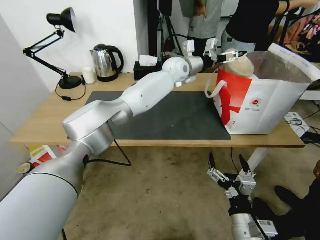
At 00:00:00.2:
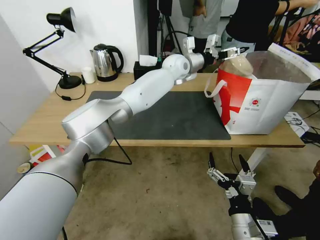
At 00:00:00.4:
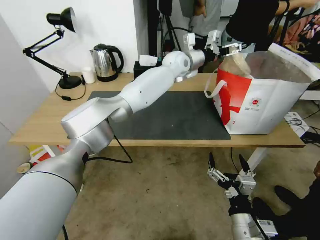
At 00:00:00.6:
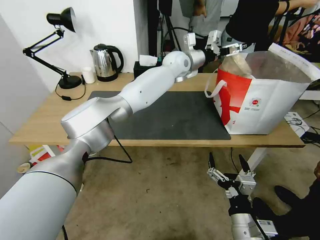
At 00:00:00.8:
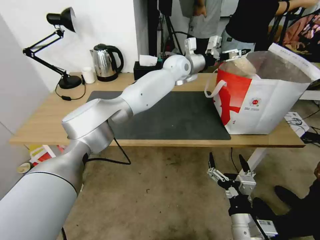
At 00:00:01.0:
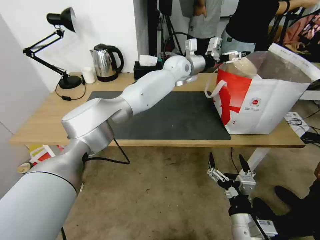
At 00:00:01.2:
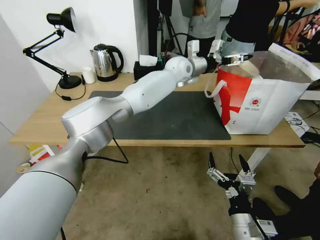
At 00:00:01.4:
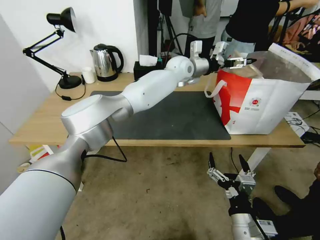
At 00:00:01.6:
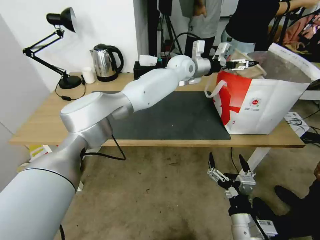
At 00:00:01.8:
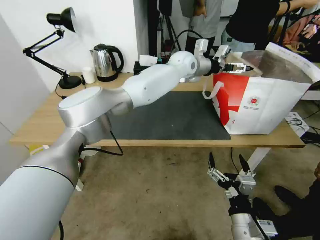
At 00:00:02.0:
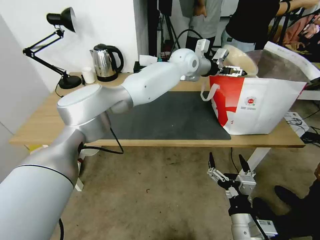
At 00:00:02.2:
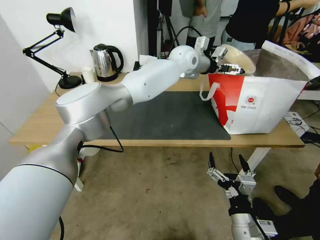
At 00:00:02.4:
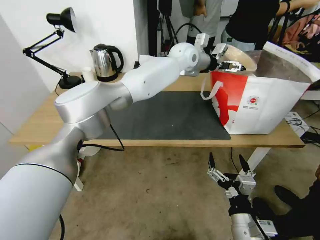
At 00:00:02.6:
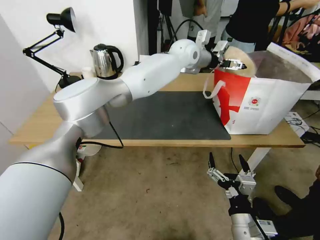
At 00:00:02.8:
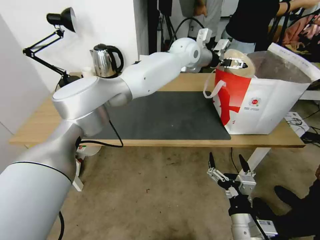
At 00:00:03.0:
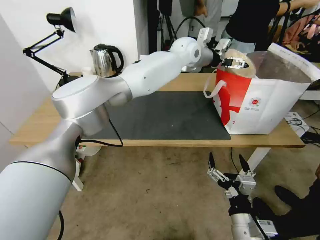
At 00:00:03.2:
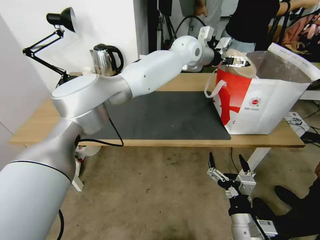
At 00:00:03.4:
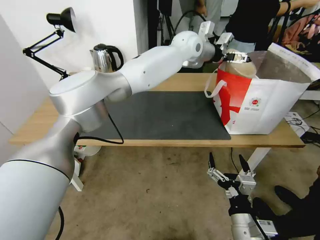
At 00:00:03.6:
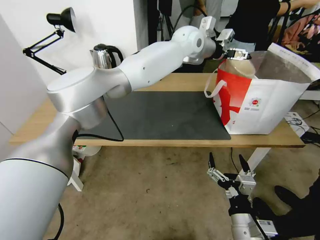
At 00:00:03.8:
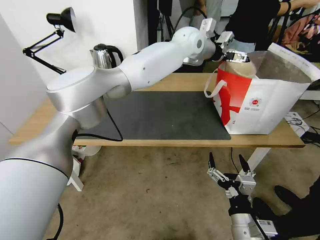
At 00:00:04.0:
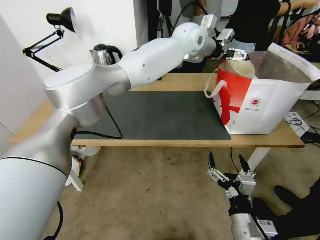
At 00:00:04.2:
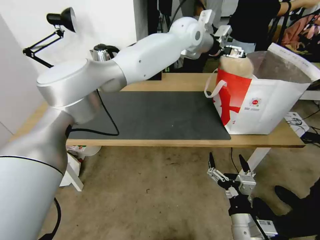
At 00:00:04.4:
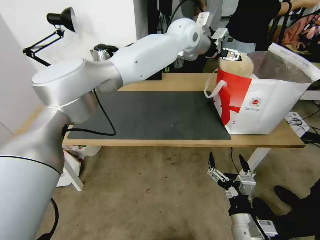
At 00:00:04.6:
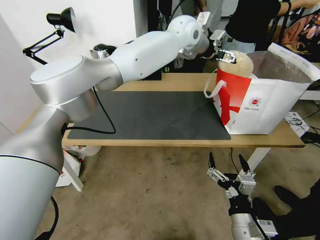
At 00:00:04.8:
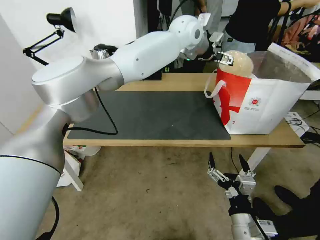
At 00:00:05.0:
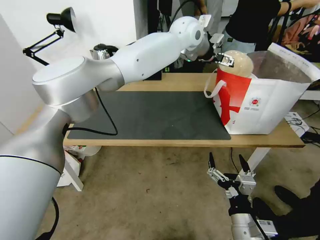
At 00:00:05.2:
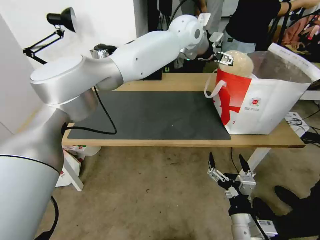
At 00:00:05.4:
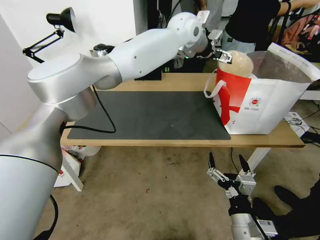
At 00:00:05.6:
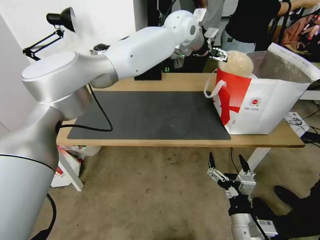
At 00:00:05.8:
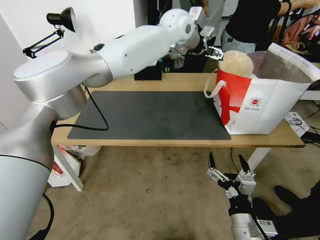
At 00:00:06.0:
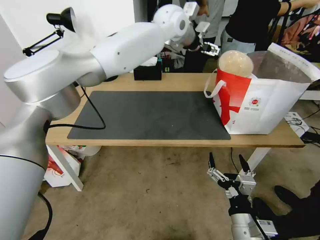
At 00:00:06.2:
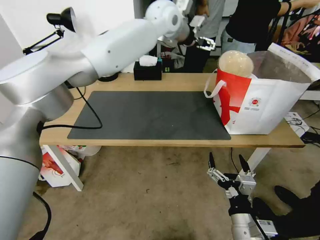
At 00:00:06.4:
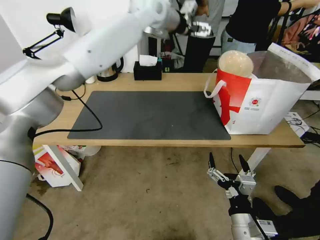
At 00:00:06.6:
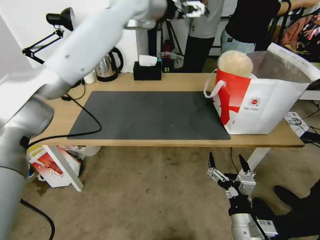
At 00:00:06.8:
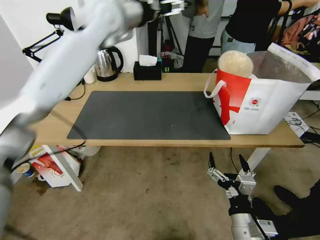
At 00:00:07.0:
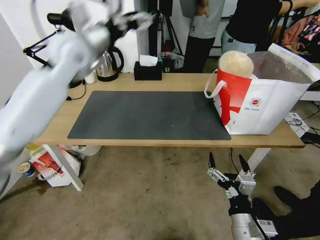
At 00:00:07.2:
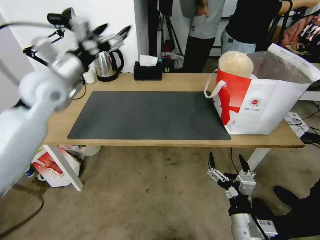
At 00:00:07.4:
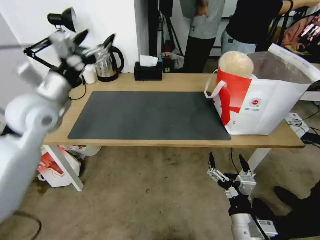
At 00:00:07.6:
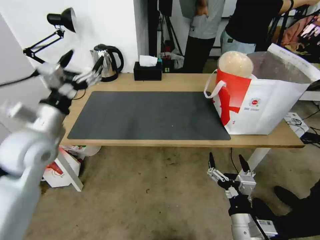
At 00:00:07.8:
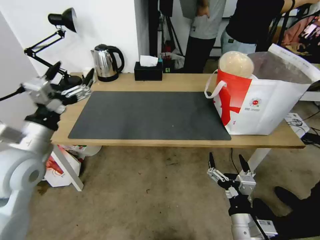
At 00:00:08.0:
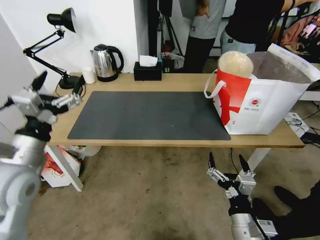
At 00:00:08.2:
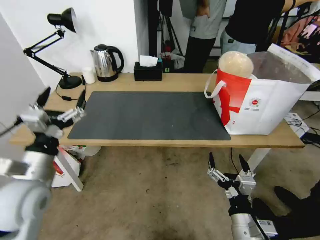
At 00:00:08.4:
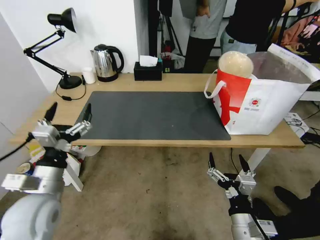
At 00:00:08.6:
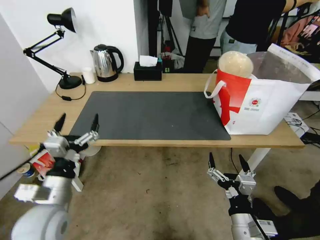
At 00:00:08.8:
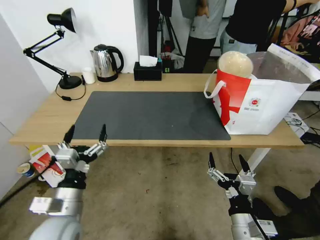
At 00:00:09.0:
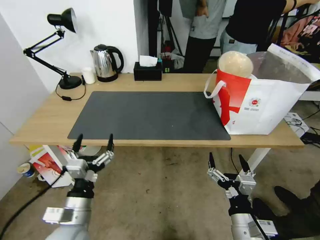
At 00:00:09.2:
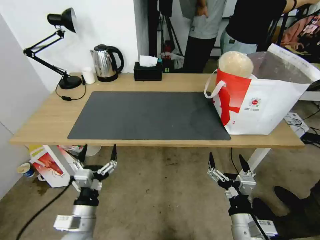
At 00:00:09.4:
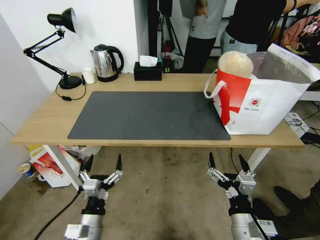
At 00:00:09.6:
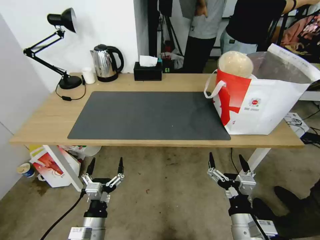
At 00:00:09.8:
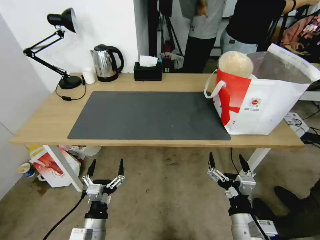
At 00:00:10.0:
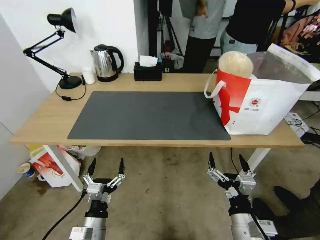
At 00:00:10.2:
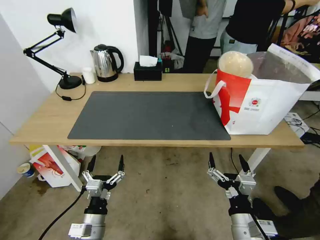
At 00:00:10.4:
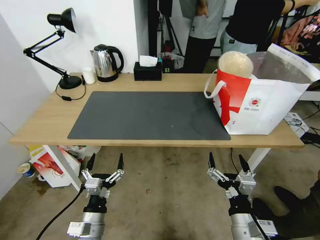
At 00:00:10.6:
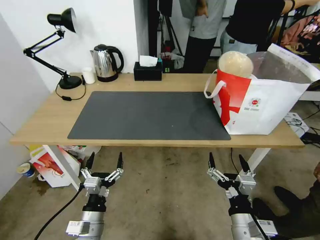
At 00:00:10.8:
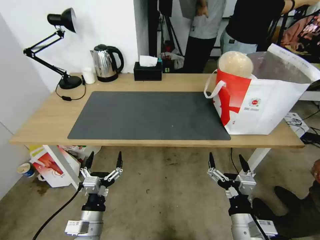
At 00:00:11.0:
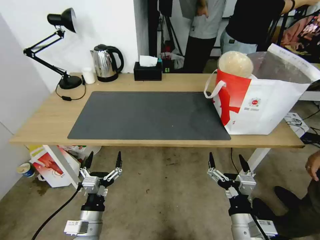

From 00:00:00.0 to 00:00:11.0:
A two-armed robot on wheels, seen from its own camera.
Task of the whole recording: Pick up the trash from the table and place it into the takeout bag.
From 00:00:00.0 to 00:00:01.6: There are only small adjustments of the grippers.
From 00:00:01.6 to 00:00:03.2: The left gripper is displaced upward by approximately 5 cm.
From 00:00:03.2 to 00:00:04.8: The left gripper travels upward by about 5 cm.
From 00:00:04.8 to 00:00:06.2: The left gripper is displaced to the left by some 10 cm.
From 00:00:06.2 to 00:00:07.8: The left gripper heads backward, to the left and downward, covering roughly 50 cm.
From 00:00:07.8 to 00:00:09.4: The left gripper shifts roughly 30 cm downward, backward and to the right.
From 00:00:09.4 to 00:00:11.0: There are only small adjustments of the grippers.

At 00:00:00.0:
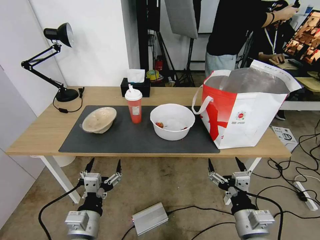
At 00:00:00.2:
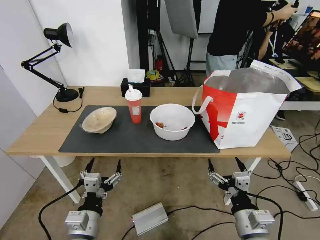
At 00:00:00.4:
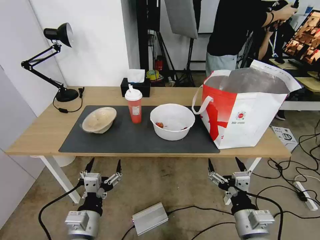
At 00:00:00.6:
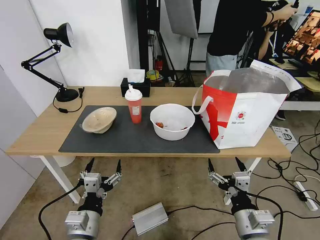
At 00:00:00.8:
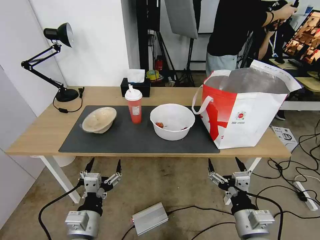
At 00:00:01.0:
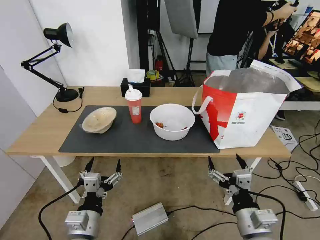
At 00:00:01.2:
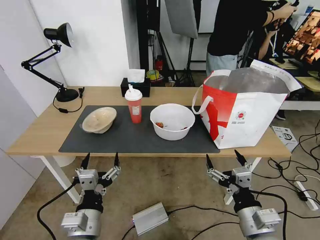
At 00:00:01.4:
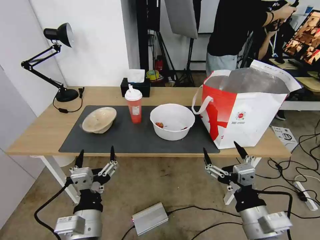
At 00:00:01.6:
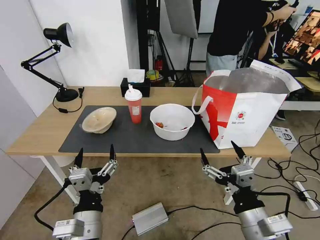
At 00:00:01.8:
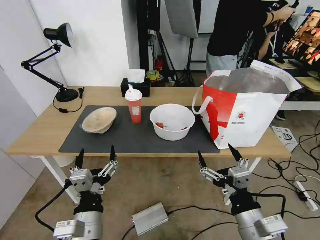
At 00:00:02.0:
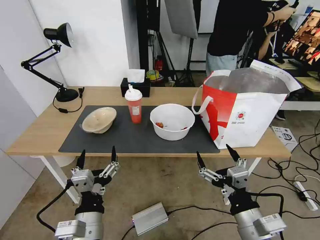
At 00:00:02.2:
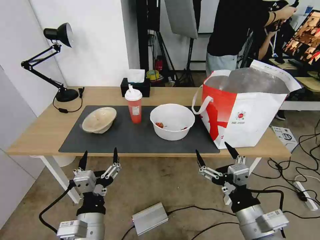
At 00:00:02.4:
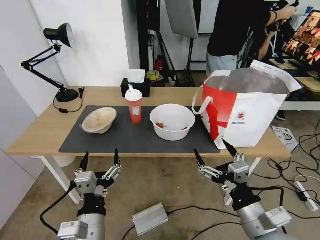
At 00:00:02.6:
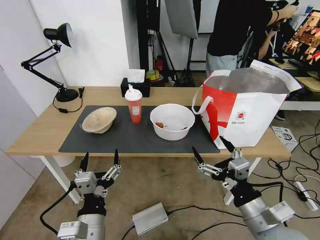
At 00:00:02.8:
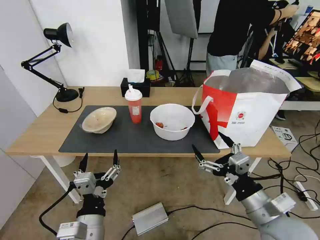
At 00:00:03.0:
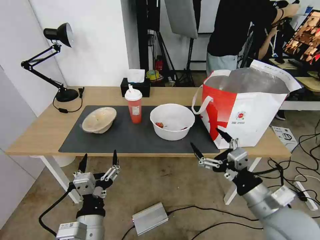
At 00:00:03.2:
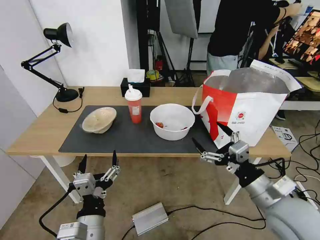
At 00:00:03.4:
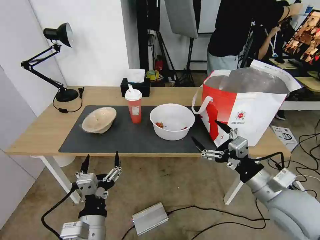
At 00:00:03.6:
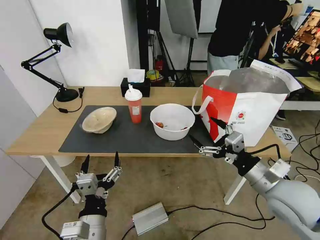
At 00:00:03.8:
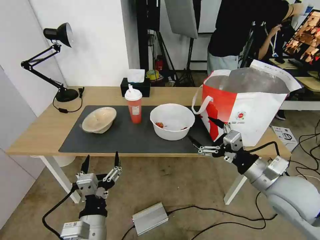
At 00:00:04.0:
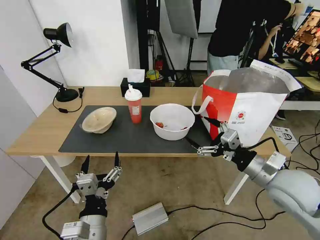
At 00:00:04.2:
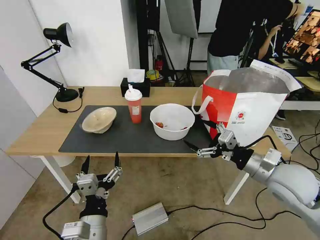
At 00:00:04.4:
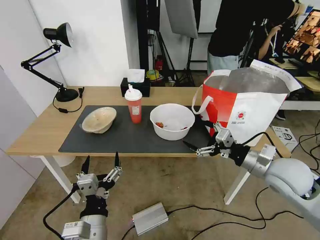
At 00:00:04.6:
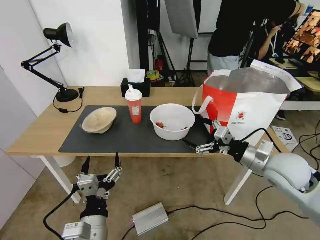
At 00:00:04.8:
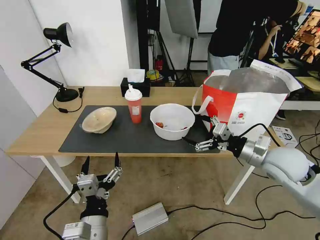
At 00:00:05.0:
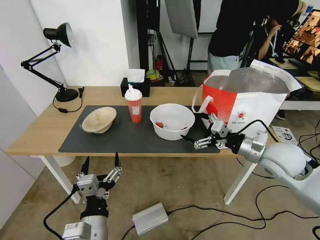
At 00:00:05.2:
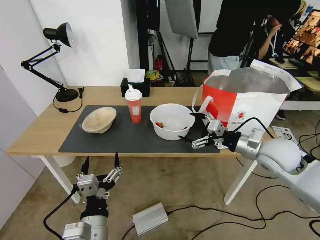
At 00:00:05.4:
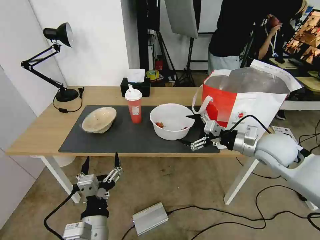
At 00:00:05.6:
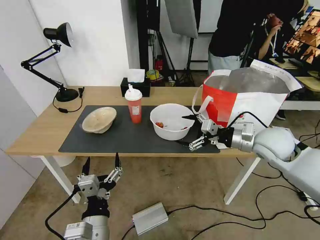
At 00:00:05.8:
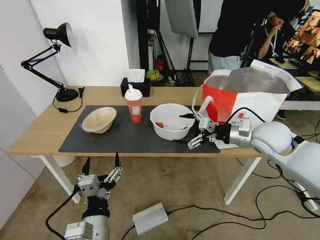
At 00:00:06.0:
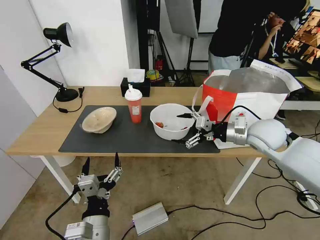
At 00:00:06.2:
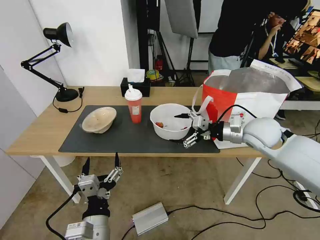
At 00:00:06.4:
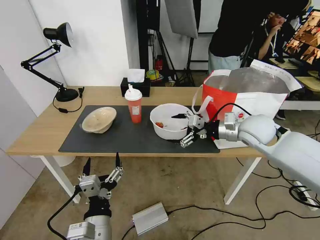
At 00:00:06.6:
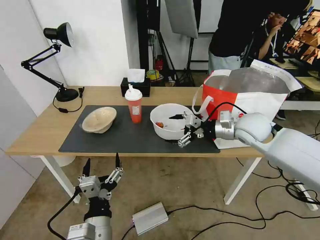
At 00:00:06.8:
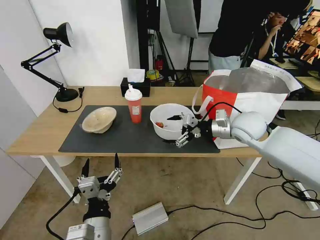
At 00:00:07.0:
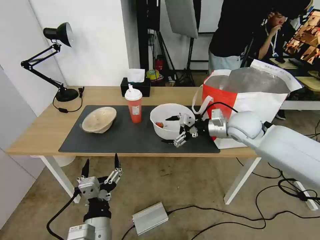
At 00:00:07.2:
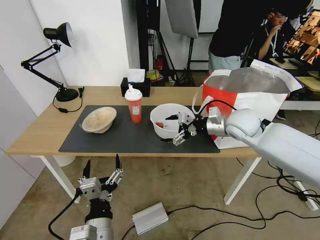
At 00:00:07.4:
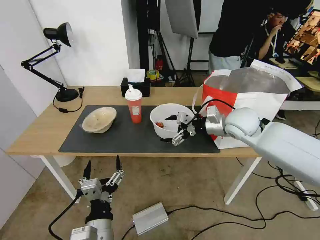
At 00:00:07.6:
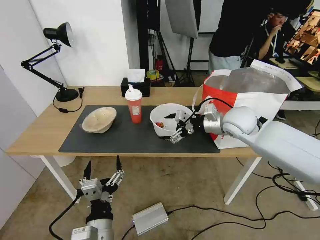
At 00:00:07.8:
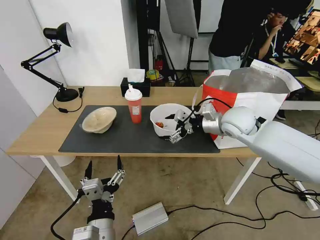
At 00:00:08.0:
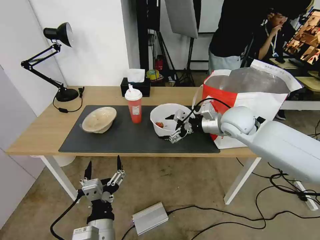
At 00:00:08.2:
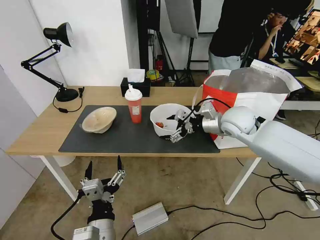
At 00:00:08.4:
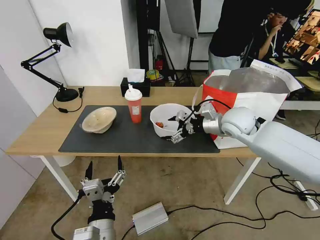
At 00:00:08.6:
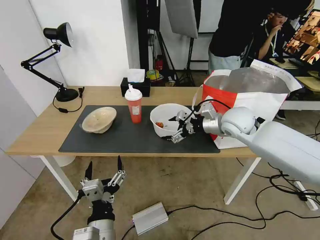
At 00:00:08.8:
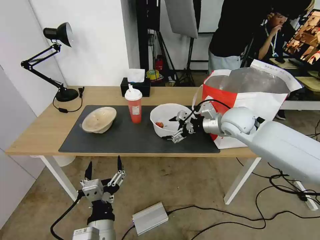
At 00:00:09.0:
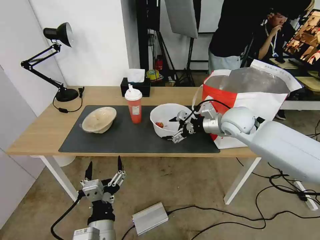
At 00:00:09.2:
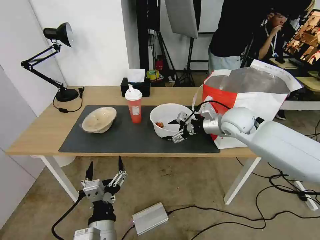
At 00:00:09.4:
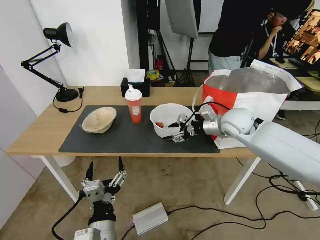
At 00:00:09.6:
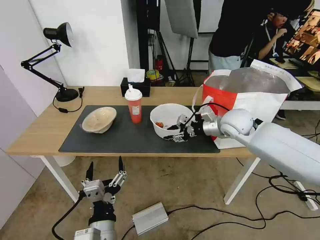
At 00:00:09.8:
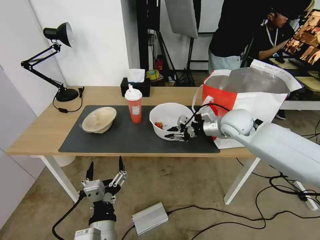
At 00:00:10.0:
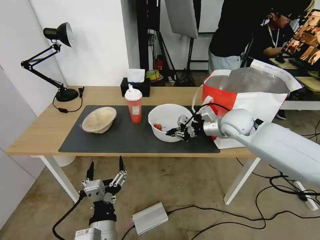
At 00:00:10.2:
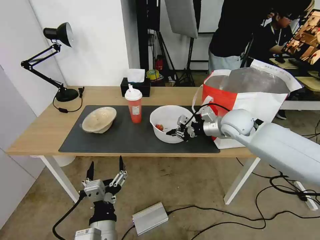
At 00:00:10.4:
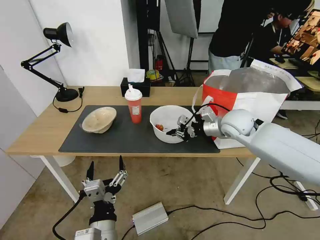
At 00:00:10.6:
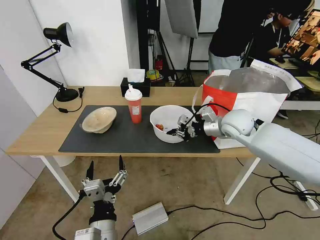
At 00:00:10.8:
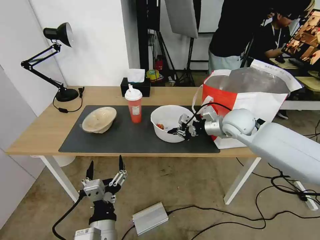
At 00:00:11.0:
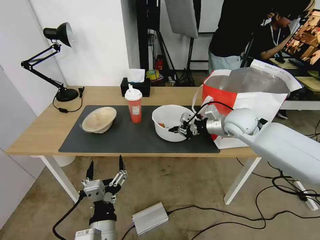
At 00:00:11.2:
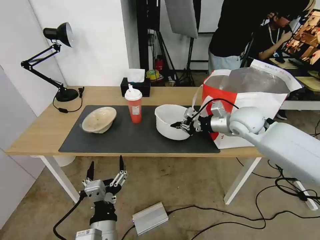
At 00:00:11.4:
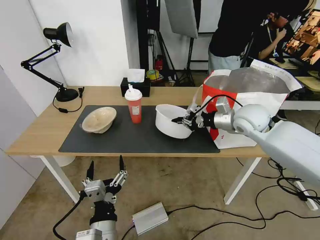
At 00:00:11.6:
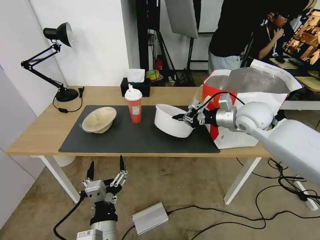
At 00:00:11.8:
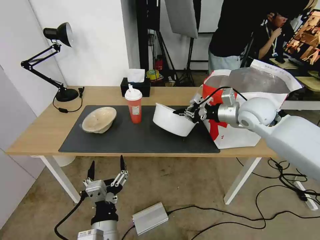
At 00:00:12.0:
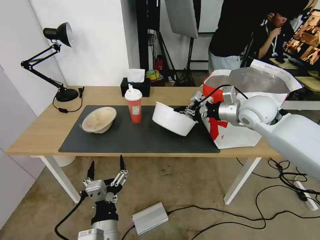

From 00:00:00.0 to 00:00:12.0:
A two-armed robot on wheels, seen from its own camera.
Task of the whole recording: Pick up the trash from the table and place it into the takeout bag.
From 00:00:01.6 to 00:00:03.0: The right gripper goes some 5 cm forward.
From 00:00:03.0 to 00:00:04.4: The right gripper travels forward and to the right by approximately 15 cm.
From 00:00:04.4 to 00:00:06.0: The right gripper shifts roughly 10 cm forward.
From 00:00:06.0 to 00:00:07.6: The right gripper moves to the left, approximately 5 cm.
From 00:00:07.6 to 00:00:09.0: There are only small adjustments of the grippers.
From 00:00:09.0 to 00:00:10.4: The right gripper closes.
From 00:00:10.4 to 00:00:12.0: The right gripper is displaced upward by approximately 5 cm.
